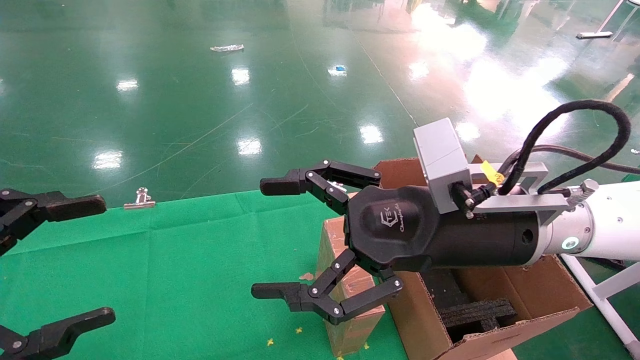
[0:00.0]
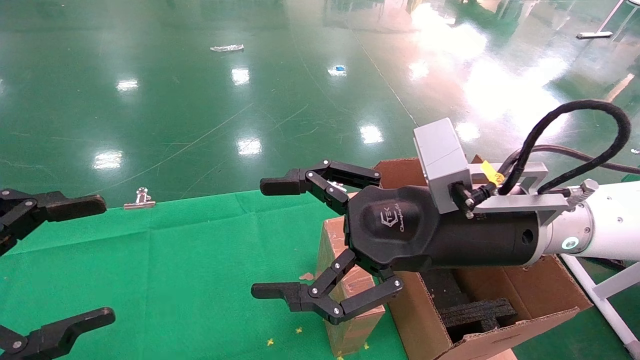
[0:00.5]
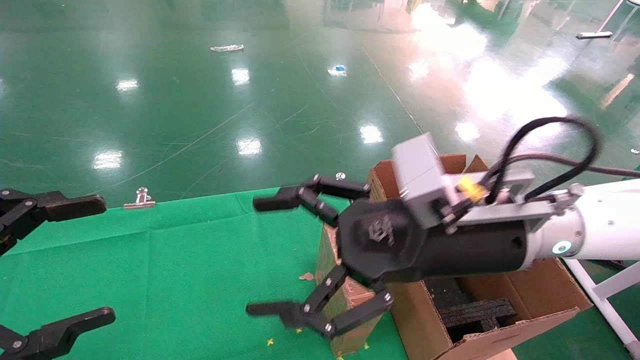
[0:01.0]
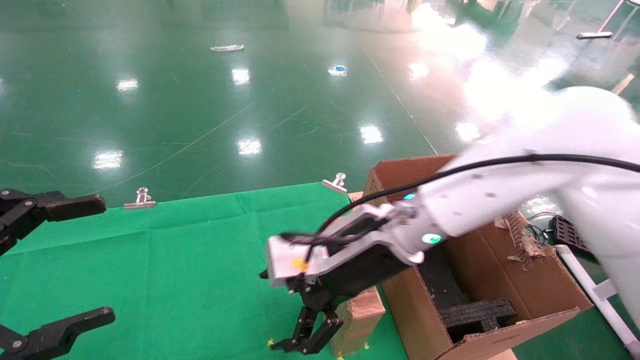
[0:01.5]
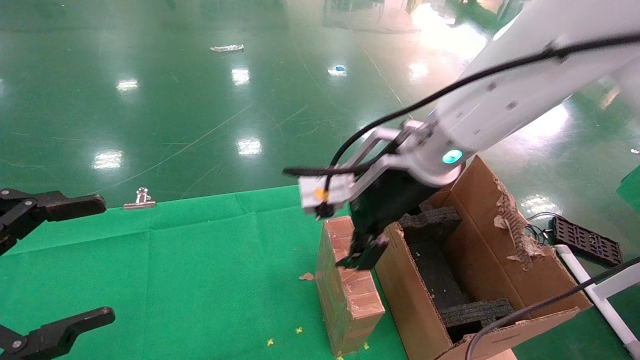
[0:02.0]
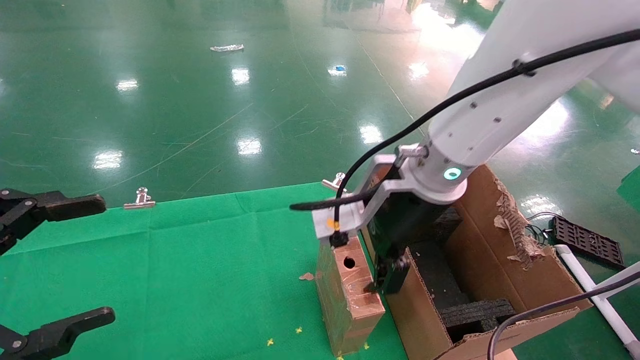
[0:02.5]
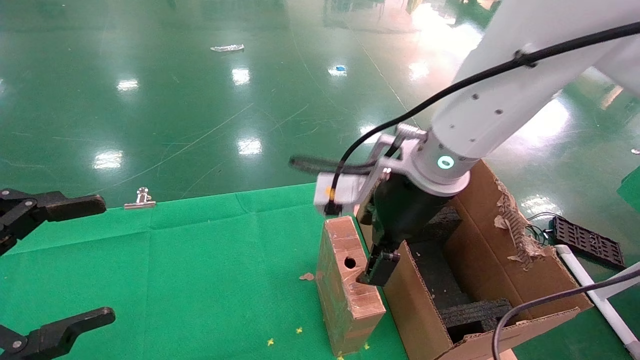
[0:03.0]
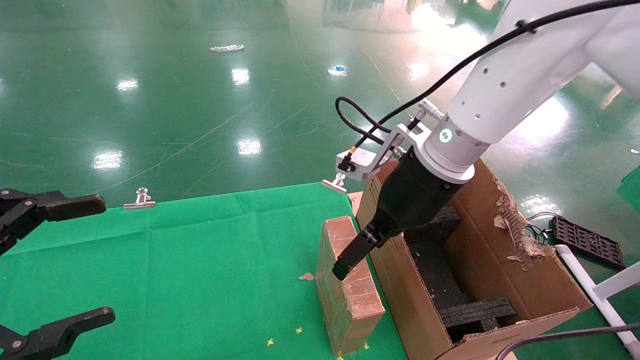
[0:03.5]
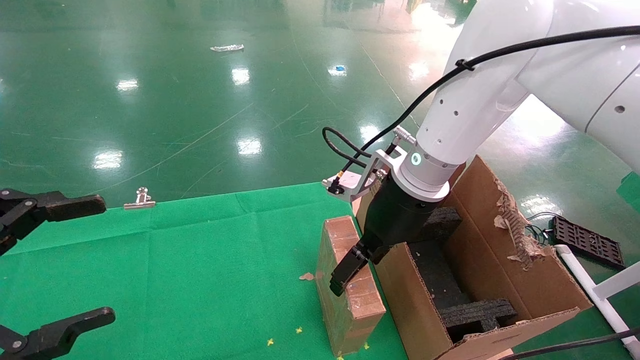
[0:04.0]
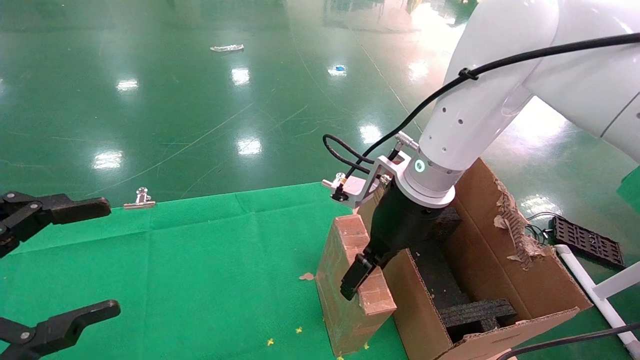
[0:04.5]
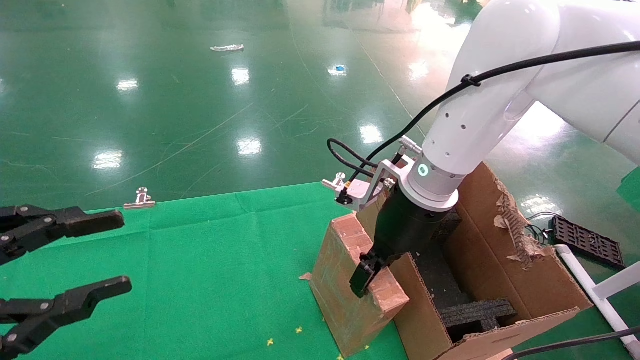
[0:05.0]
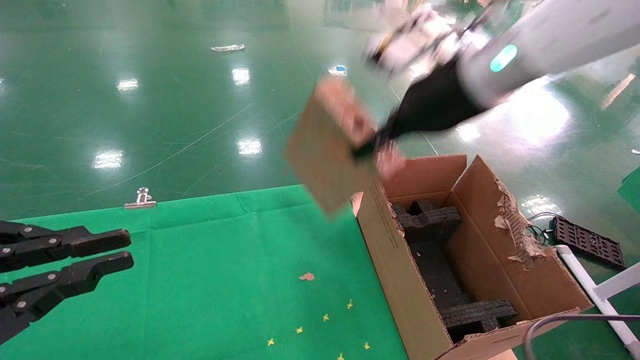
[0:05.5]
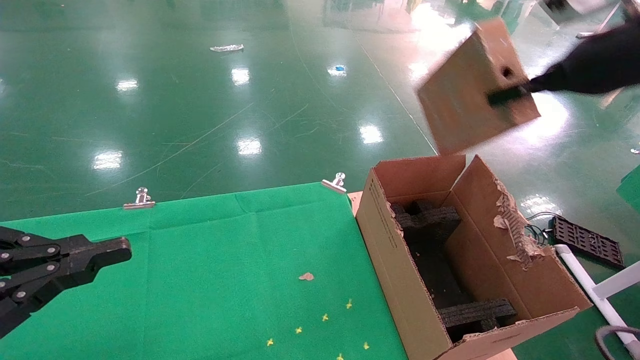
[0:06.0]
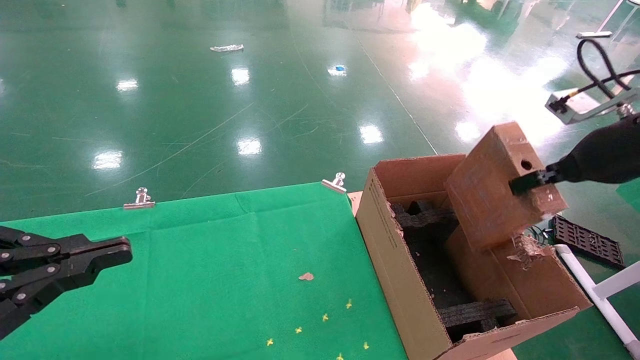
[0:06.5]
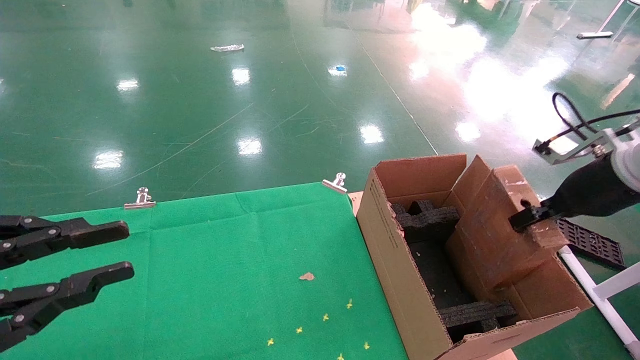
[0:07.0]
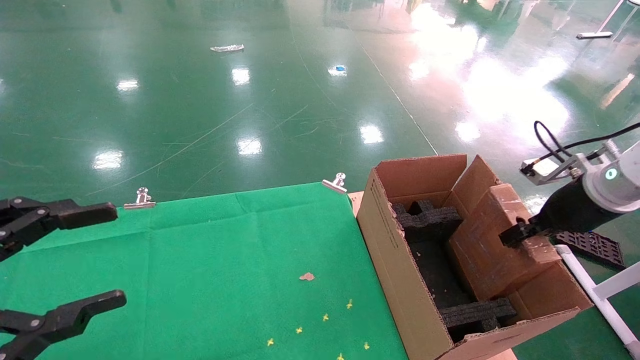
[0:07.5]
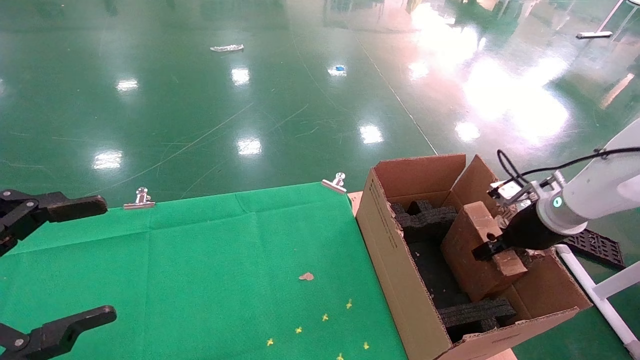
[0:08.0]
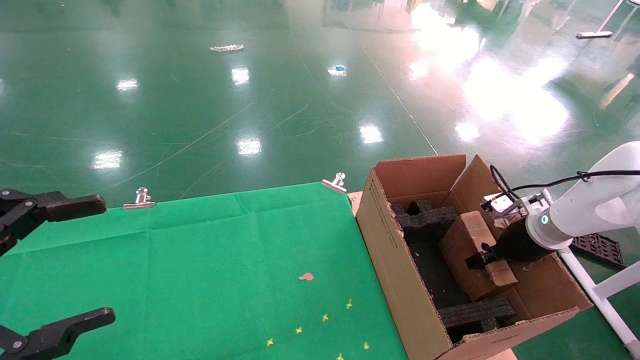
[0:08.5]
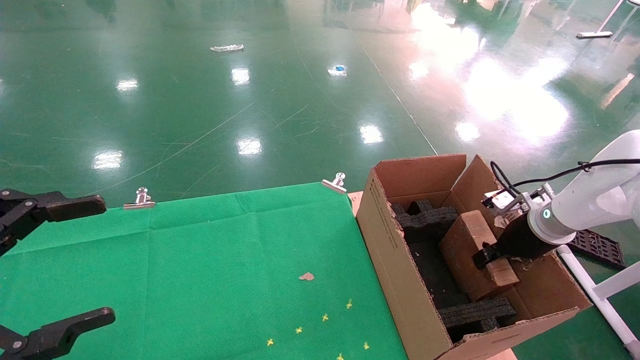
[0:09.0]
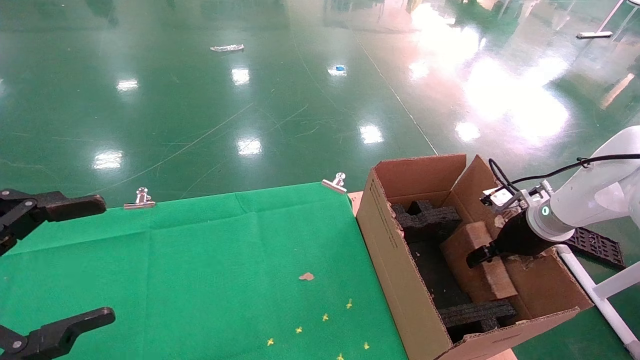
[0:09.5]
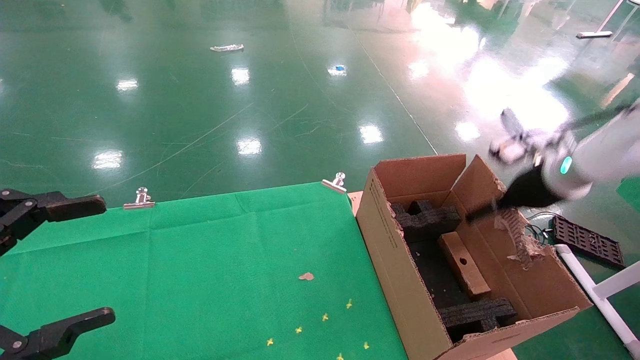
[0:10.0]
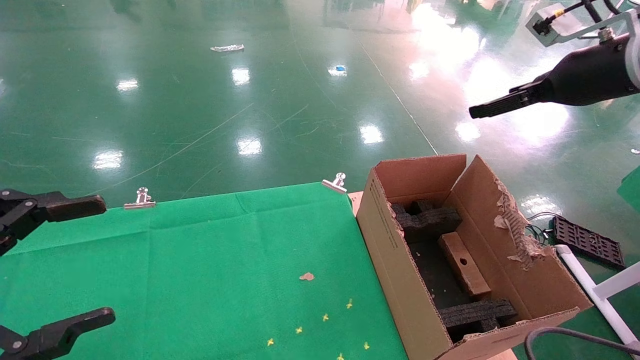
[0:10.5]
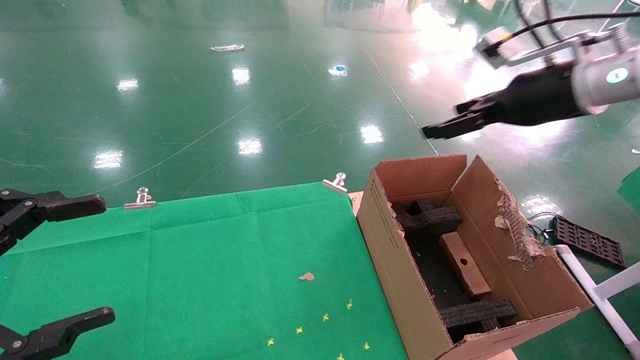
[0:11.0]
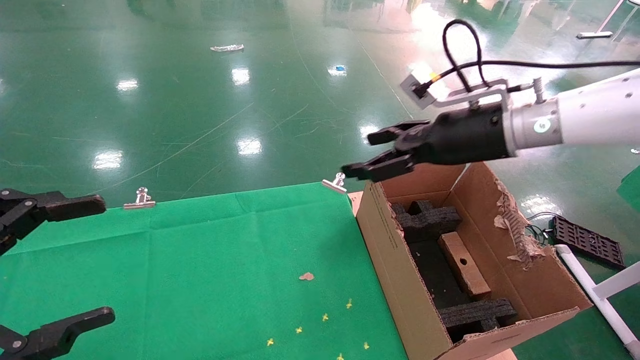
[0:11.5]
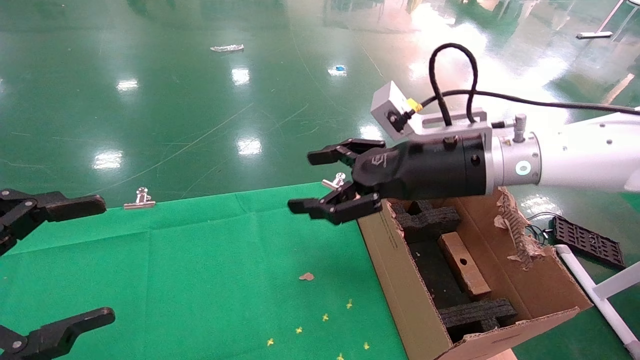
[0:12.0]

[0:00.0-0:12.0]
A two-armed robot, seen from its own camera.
Task of the whole recording: using a robotic arm to pick up a cardboard box and palace it the carton.
Step, 0:01.5 to 0:05.0: Pick up the mouse and the power cord paper box.
Step, 0:05.5 to 0:09.5: Place the mouse and the power cord paper box into the container.
0:00.0 to 0:02.0: The right gripper is displaced forward and to the left by roughly 10 cm.
0:02.0 to 0:04.0: The right gripper moves about 5 cm.
0:04.0 to 0:06.0: The left gripper closes; the right gripper goes roughly 25 cm to the right and upward, and closes its fingers.
0:06.0 to 0:08.0: The left gripper opens up; the right gripper shifts approximately 25 cm downward.
0:08.0 to 0:10.0: The right gripper is displaced upward by about 10 cm, and opens its fingers.
0:10.0 to 0:12.0: The right gripper heads to the left, covering about 20 cm.

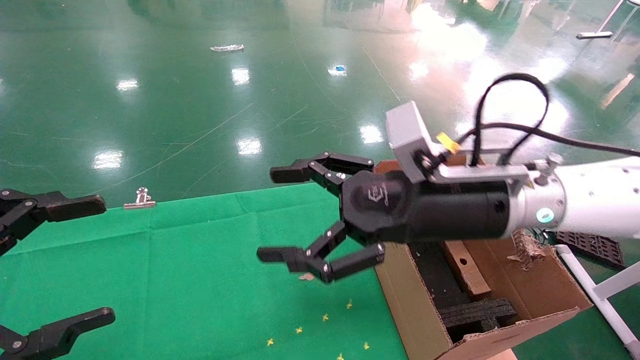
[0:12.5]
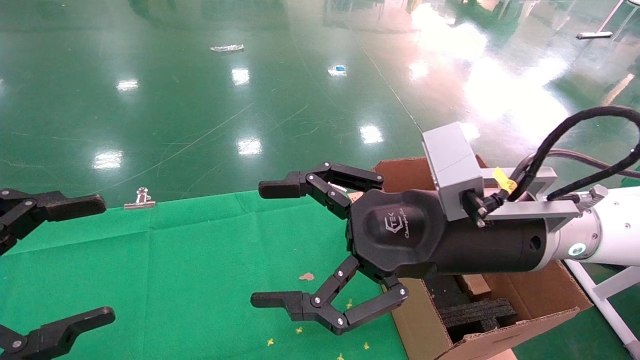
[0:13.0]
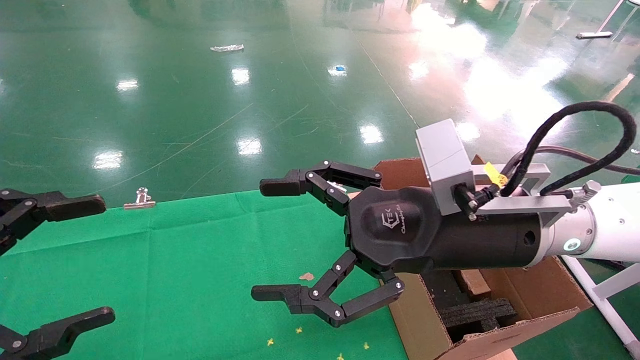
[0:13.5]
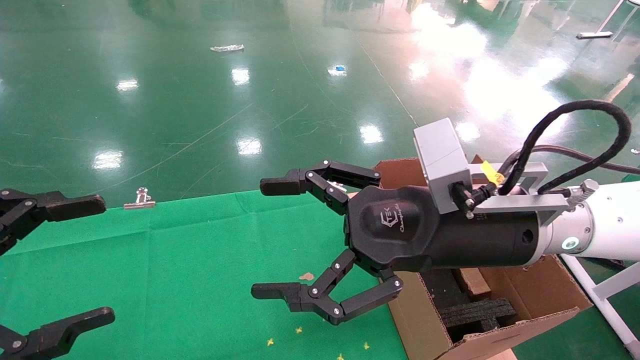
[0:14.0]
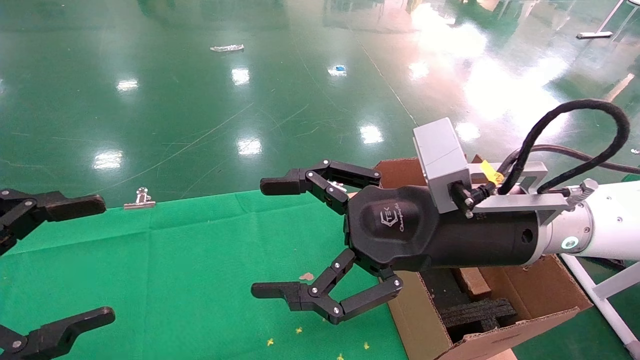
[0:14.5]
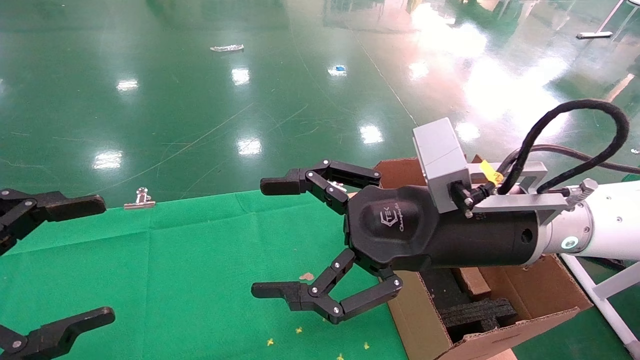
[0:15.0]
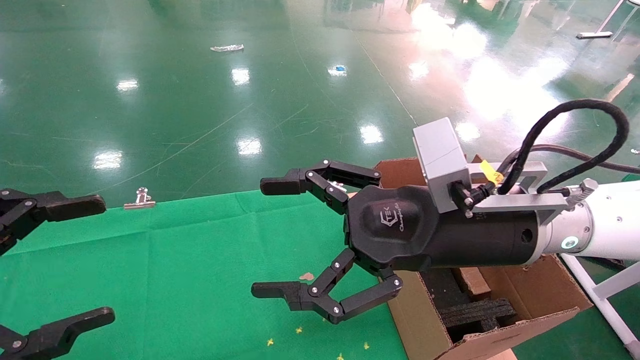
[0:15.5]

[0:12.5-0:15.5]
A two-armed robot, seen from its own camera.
Task of the whole recording: using a robotic arm to pick up a cardboard box and palace it the carton.
0:12.5 to 0:14.0: The grippers make only small movements.
0:14.0 to 0:15.5: Both grippers stay put.
